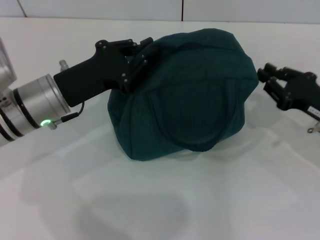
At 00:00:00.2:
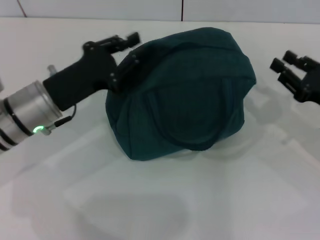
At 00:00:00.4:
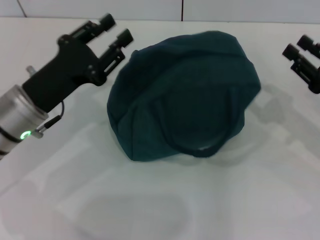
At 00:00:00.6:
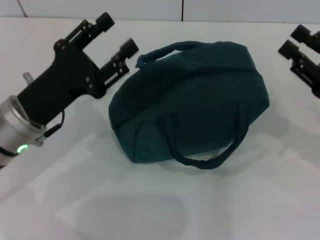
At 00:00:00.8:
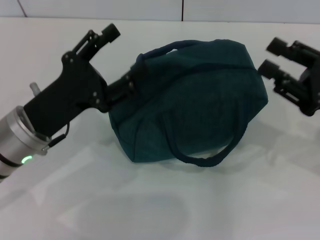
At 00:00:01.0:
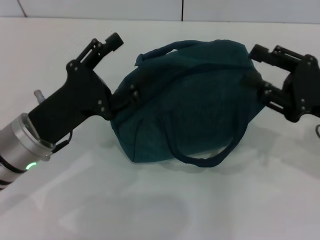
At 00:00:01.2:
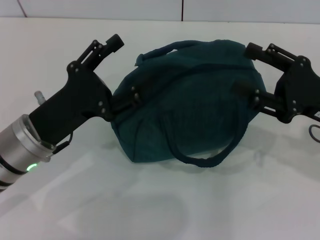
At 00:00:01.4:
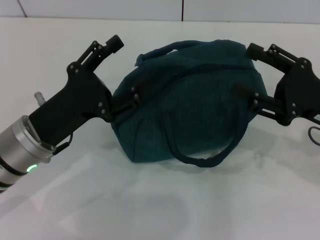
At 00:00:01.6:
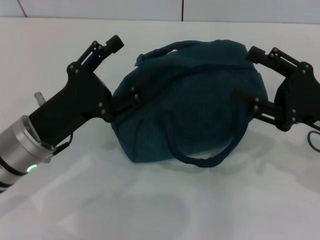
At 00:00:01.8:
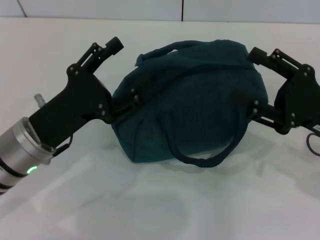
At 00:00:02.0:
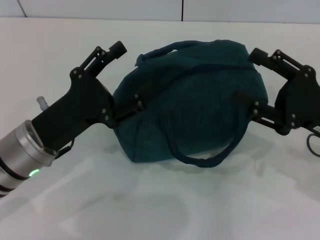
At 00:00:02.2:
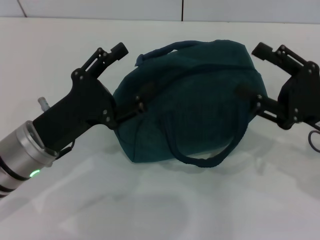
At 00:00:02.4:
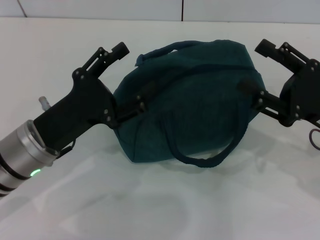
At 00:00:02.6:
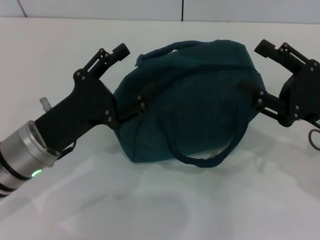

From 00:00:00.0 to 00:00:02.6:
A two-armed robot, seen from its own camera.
From 00:00:00.0 to 00:00:01.2: The right gripper goes about 5 cm upward, and opens up. The left gripper goes approximately 5 cm backward, and opens its fingers.
From 00:00:01.2 to 00:00:02.6: The grippers stay close to where they were, moving slightly.
